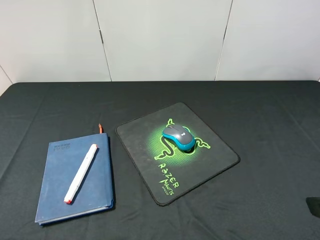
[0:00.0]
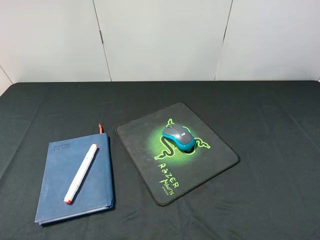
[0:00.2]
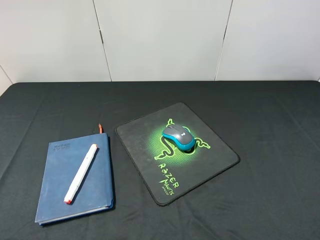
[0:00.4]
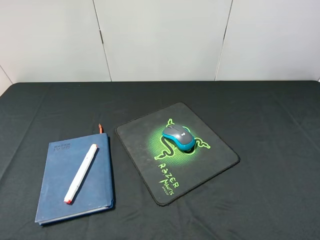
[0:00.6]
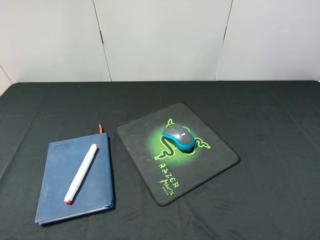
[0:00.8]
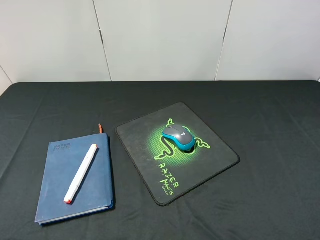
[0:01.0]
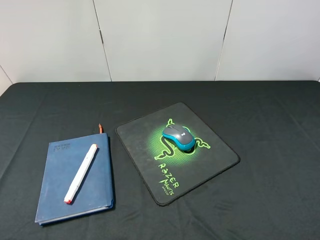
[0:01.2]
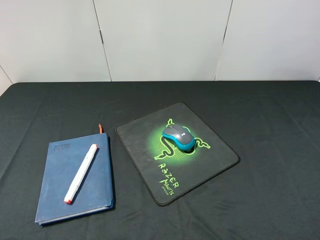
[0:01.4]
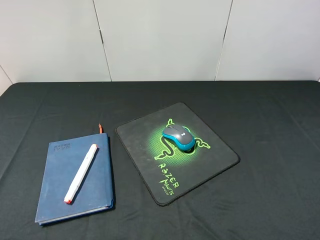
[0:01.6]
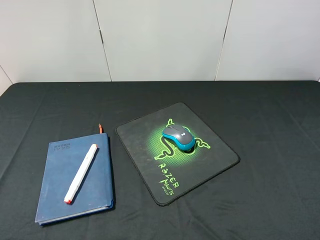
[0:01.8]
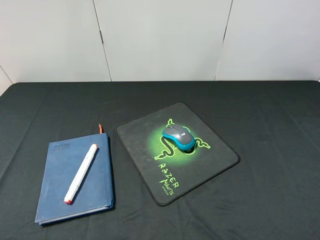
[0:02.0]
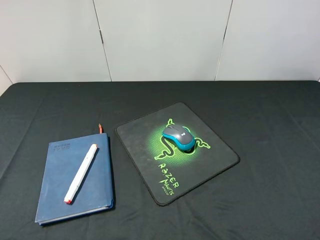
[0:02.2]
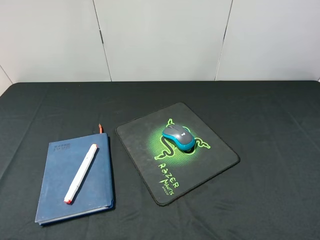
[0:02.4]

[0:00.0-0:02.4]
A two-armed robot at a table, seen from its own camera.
0:01.2 to 0:02.4: Both grippers stay about where they are.
